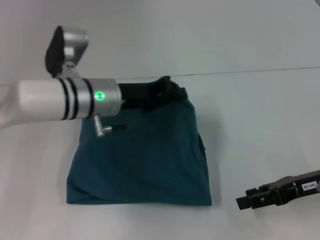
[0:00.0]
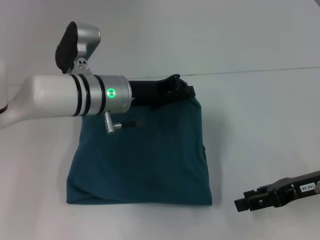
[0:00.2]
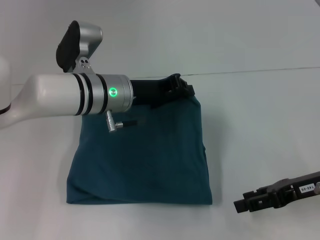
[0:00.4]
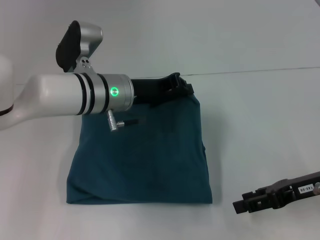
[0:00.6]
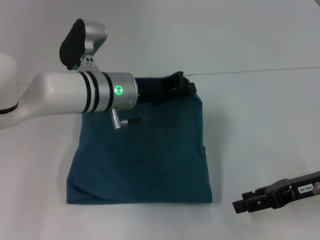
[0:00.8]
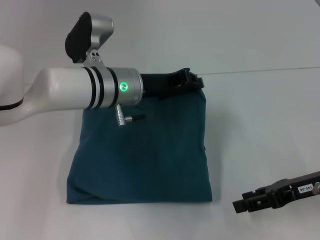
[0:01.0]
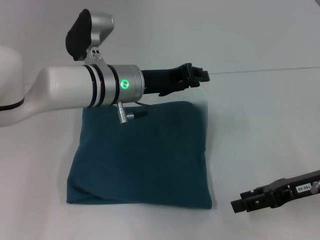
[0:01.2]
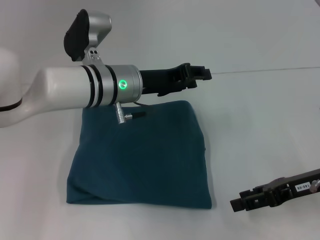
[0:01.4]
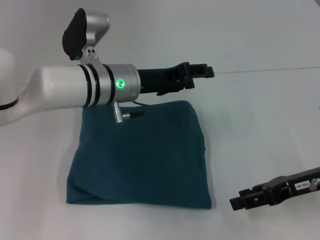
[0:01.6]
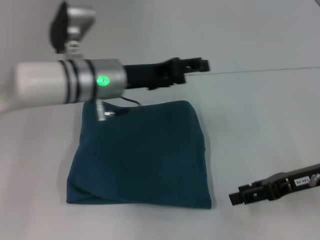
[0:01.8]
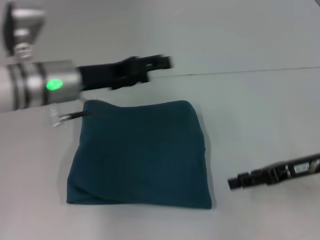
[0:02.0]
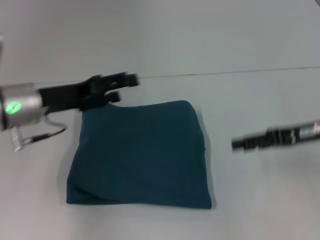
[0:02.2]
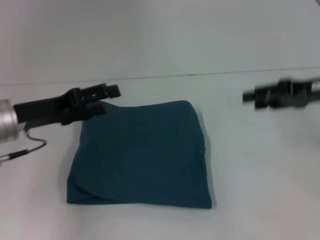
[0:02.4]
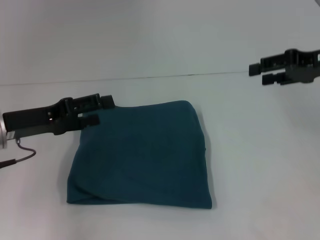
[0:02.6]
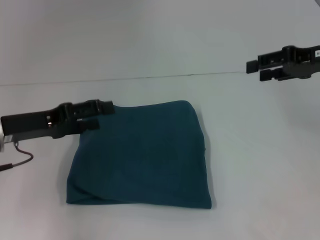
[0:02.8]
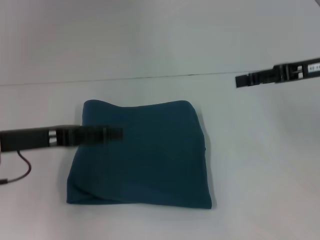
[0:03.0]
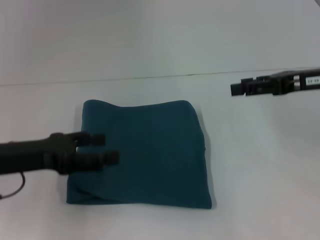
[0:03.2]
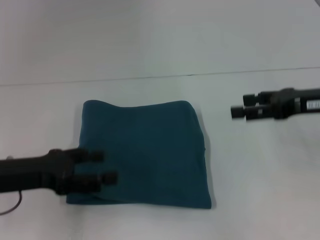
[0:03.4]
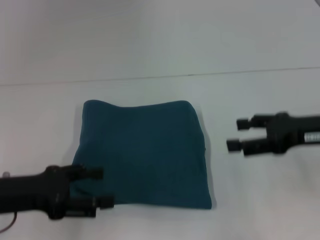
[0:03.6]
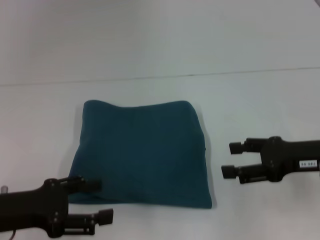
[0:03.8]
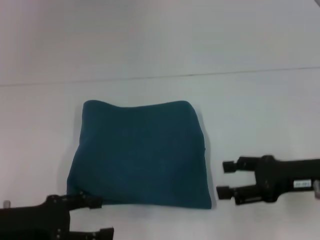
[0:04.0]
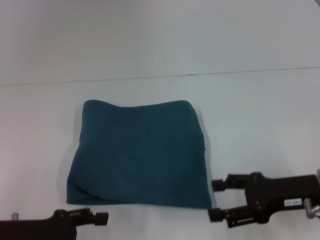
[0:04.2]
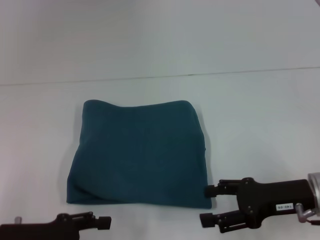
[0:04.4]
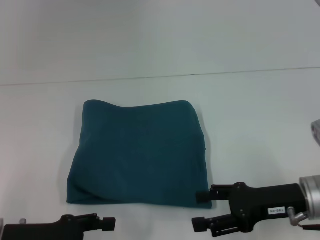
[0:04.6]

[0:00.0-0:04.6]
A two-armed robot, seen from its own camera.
0.0 to 1.6 s: The left gripper opens its fingers.
1.6 to 3.0 s: The right gripper is displaced upward and forward by approximately 15 cm, while the left gripper heads to the left and backward, covering about 20 cm, and opens.
3.0 to 4.6 s: The left gripper is displaced backward and downward by approximately 10 cm. Meanwhile the right gripper moves downward, backward and to the left, about 20 cm.

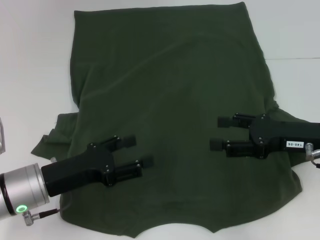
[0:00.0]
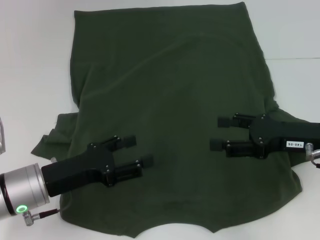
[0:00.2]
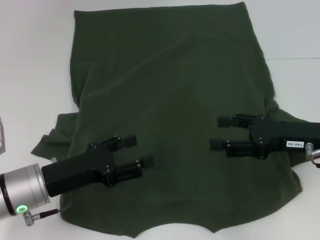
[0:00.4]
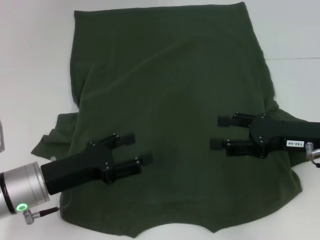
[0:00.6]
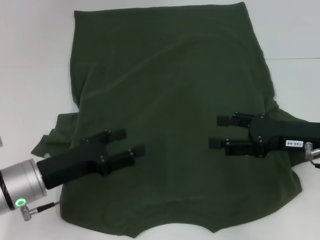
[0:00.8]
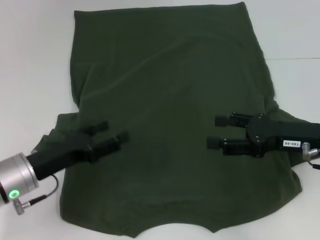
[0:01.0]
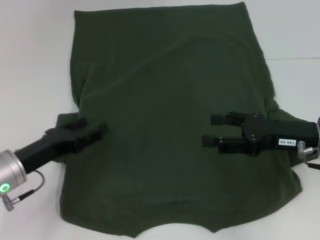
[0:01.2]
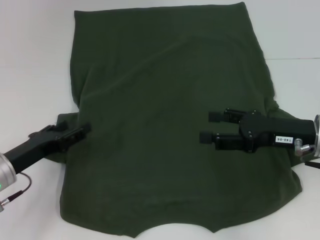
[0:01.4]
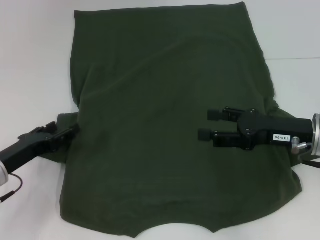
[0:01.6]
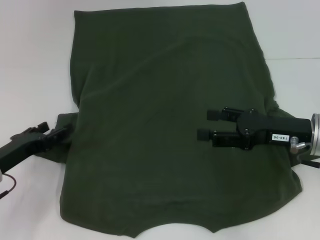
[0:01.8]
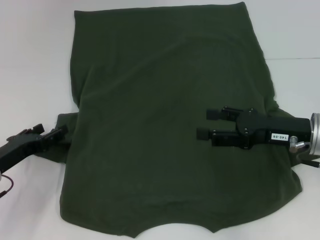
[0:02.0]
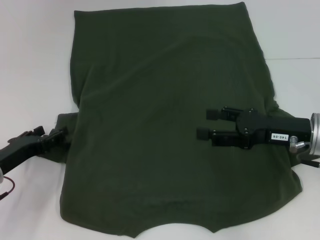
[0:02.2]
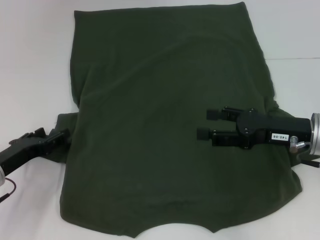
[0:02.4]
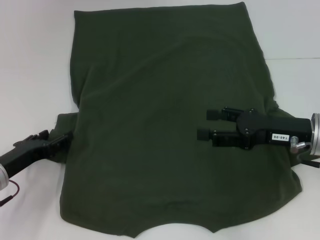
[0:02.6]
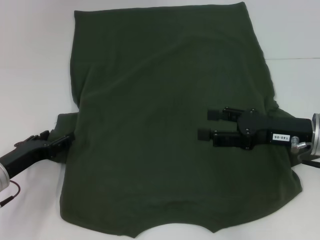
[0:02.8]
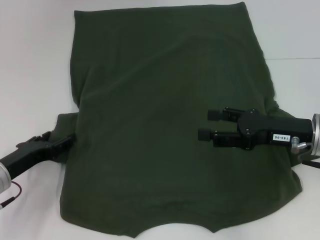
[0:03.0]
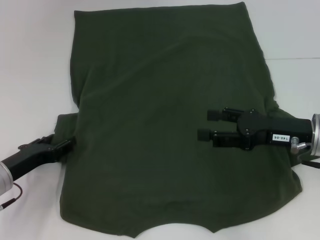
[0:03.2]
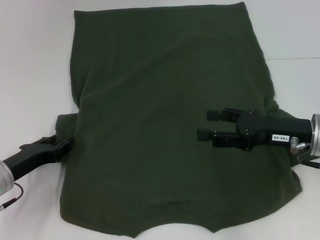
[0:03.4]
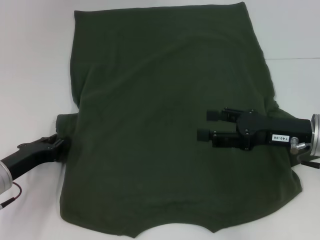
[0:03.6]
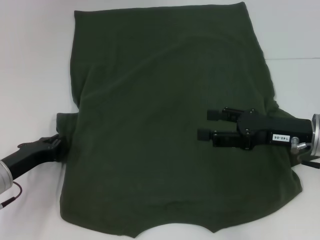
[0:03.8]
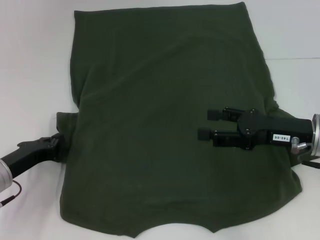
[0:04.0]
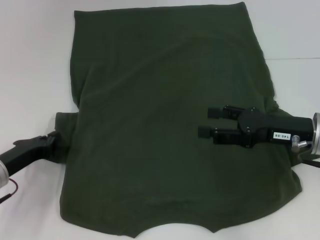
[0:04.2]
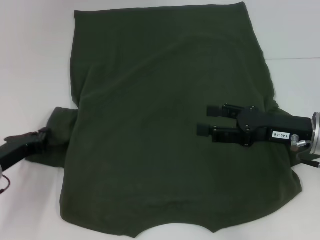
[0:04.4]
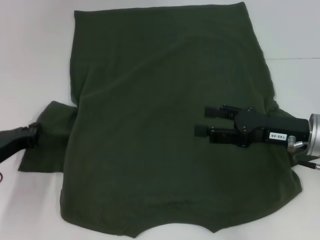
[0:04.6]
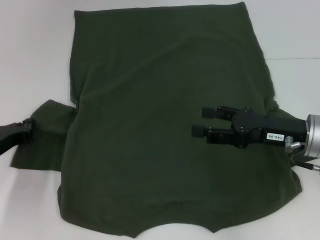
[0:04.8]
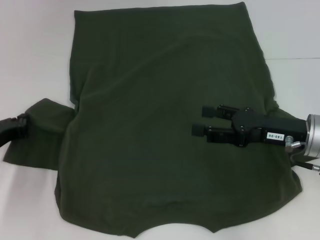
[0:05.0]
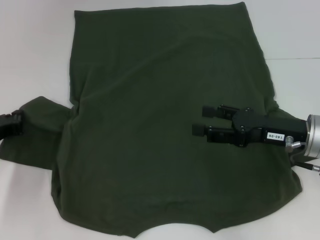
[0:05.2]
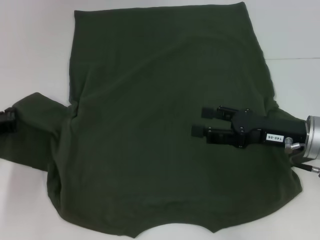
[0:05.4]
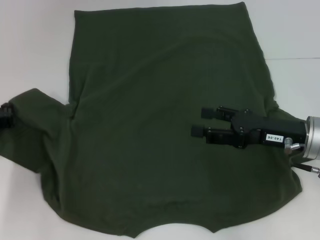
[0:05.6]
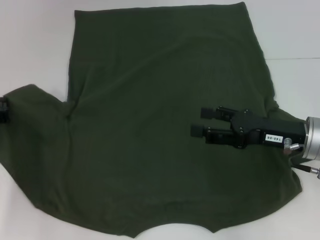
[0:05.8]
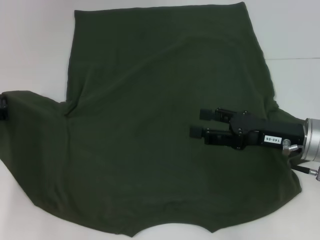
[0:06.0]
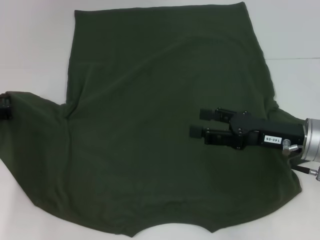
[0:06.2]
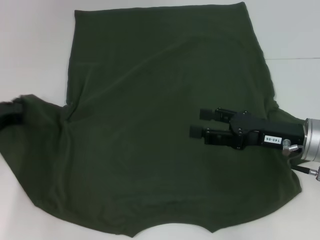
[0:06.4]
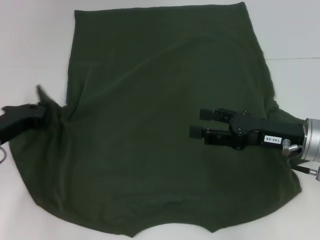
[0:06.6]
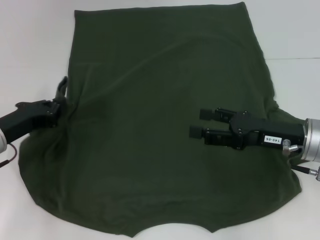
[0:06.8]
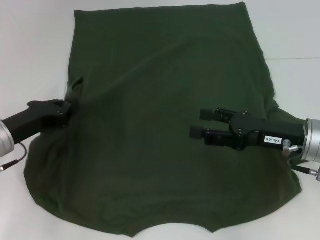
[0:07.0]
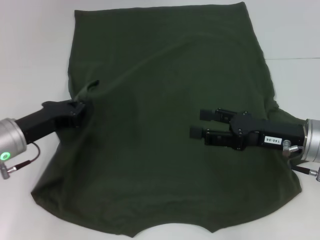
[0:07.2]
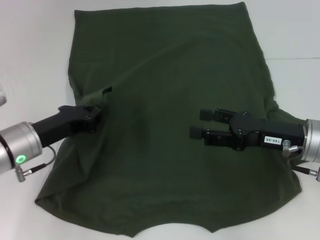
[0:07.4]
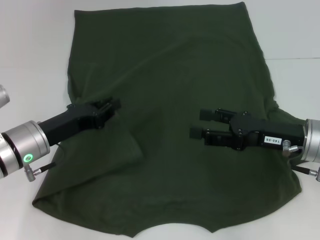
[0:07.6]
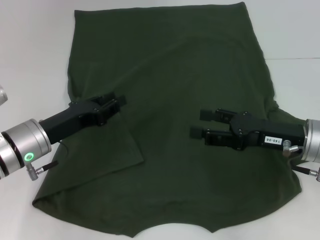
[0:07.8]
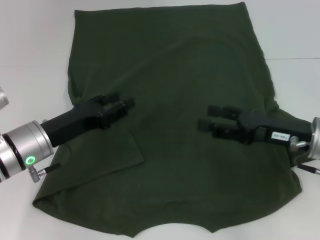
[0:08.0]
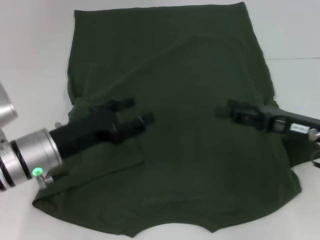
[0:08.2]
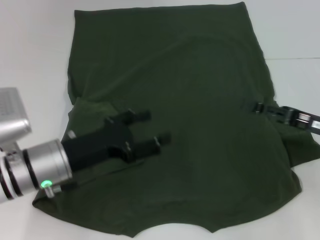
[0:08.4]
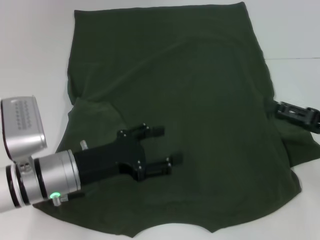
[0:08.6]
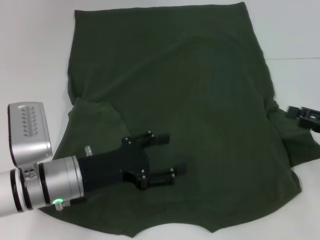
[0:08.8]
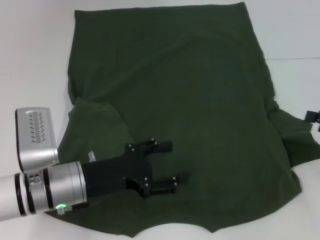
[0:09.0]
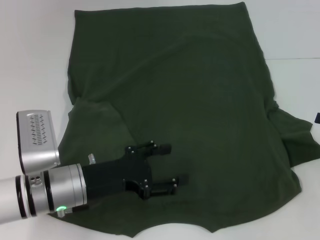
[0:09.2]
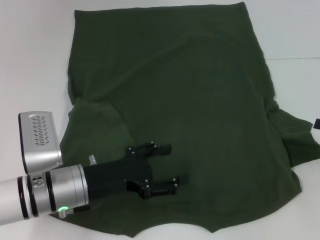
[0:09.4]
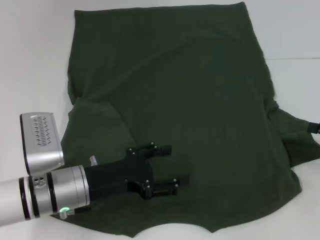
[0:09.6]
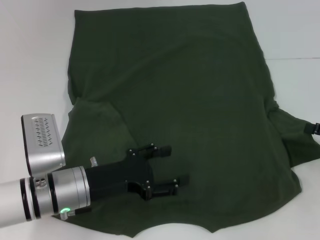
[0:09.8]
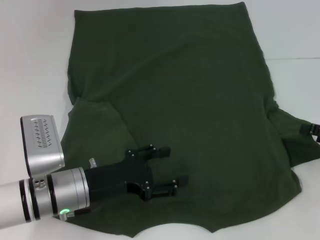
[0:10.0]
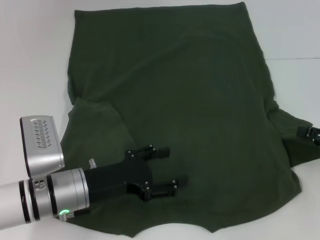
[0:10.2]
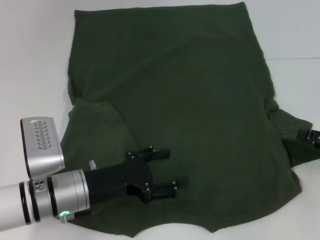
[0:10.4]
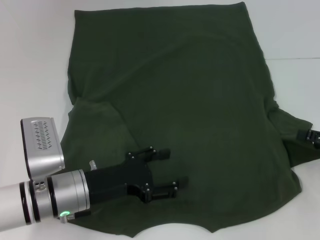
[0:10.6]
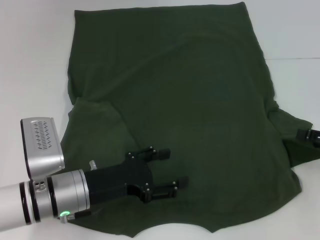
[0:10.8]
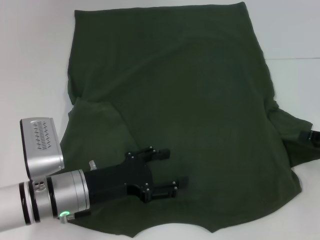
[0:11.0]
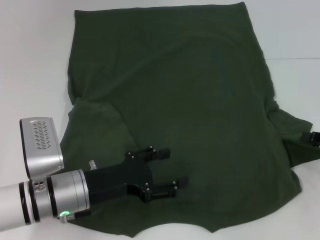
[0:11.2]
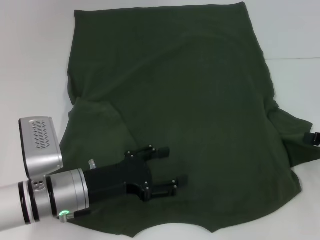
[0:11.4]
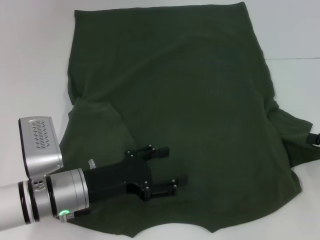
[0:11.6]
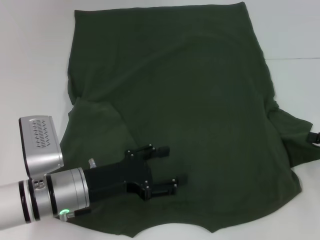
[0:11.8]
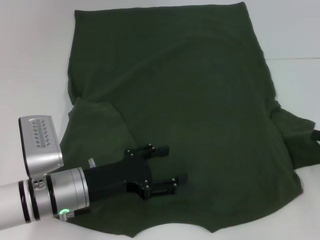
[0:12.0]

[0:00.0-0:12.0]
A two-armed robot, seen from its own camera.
Step, 0.0 to 7.8 s: Fold the bottom left sleeve with your left hand.
0.0 to 1.6 s: The left gripper moves to the left, approximately 5 cm.
1.6 to 3.0 s: The grippers move only a little.
3.0 to 4.4 s: The left gripper closes its fingers.
4.4 to 6.0 s: The left gripper ends up some 5 cm from where it was.
6.0 to 7.6 s: The left gripper goes roughly 10 cm to the right.
7.6 to 9.0 s: The right gripper shifts about 15 cm to the right, while the left gripper moves to the right, approximately 5 cm, and opens.
9.0 to 10.4 s: The grippers make only small movements.
10.4 to 12.0 s: The right gripper closes up.

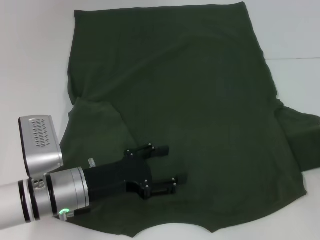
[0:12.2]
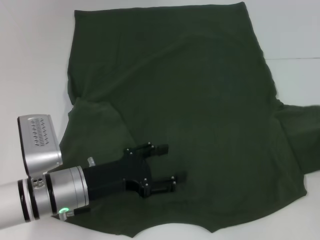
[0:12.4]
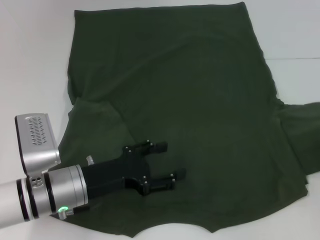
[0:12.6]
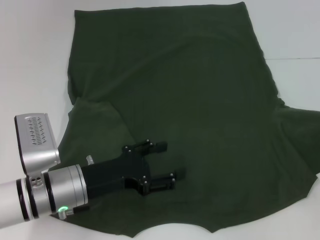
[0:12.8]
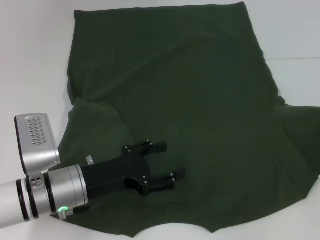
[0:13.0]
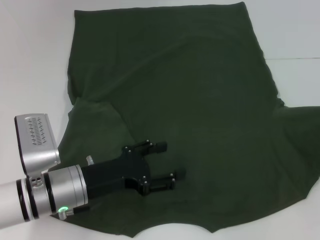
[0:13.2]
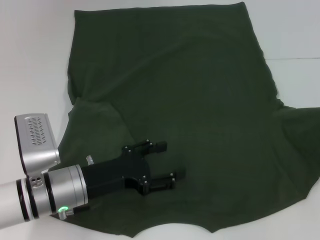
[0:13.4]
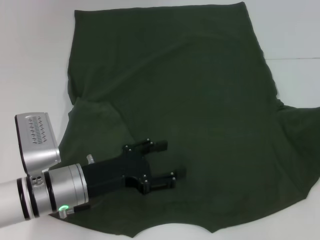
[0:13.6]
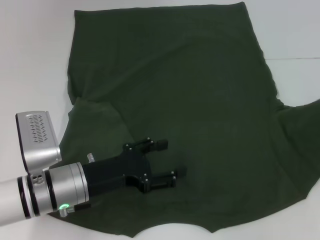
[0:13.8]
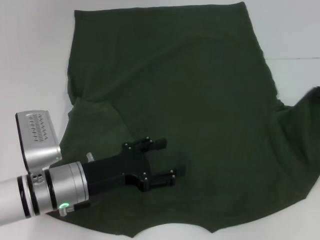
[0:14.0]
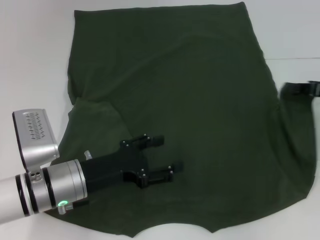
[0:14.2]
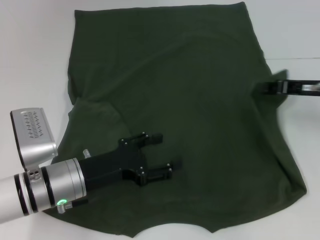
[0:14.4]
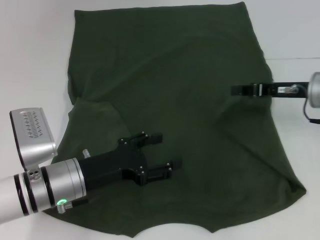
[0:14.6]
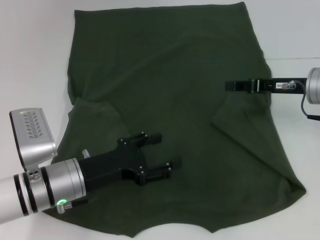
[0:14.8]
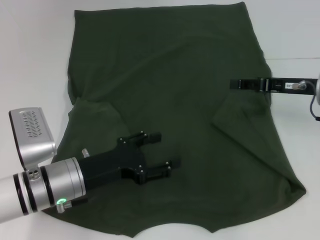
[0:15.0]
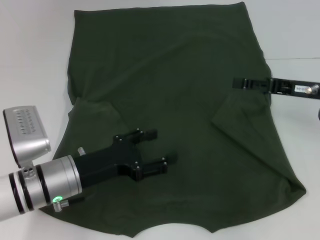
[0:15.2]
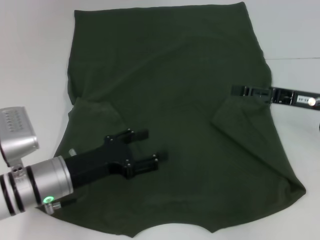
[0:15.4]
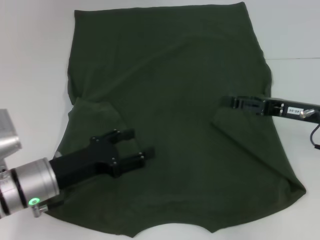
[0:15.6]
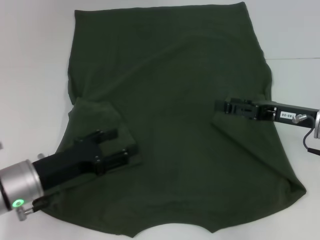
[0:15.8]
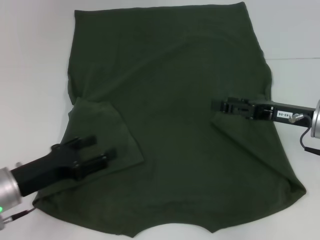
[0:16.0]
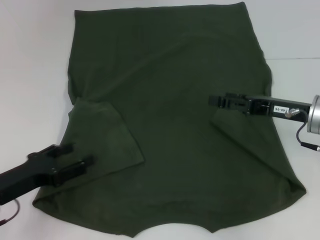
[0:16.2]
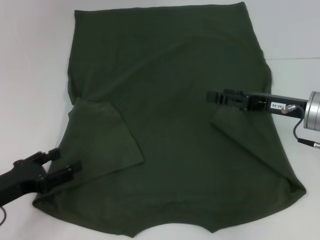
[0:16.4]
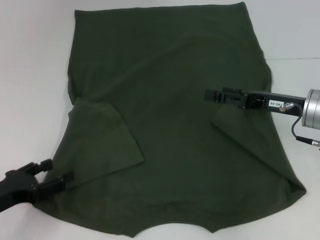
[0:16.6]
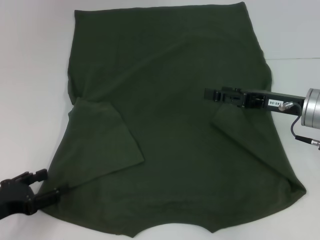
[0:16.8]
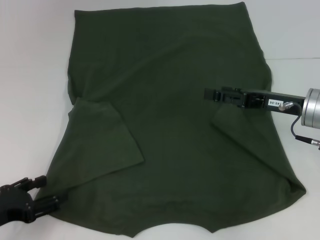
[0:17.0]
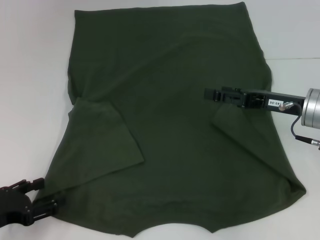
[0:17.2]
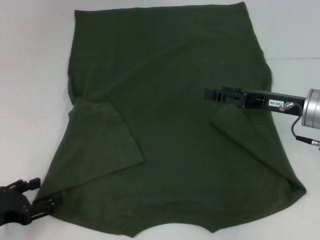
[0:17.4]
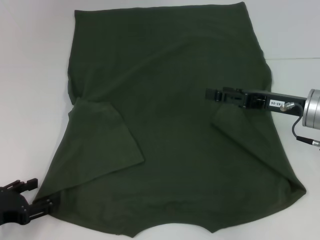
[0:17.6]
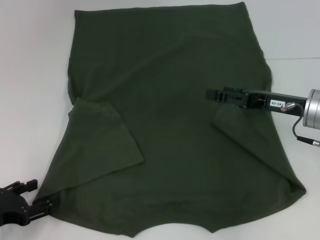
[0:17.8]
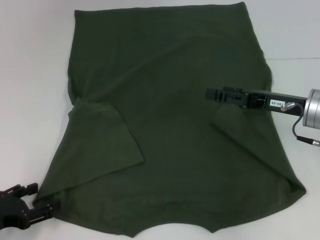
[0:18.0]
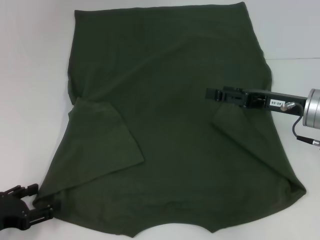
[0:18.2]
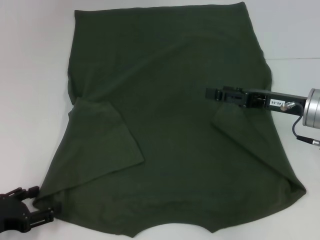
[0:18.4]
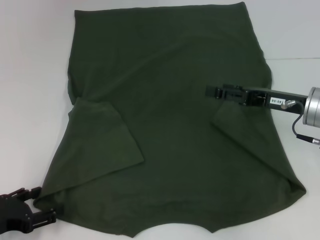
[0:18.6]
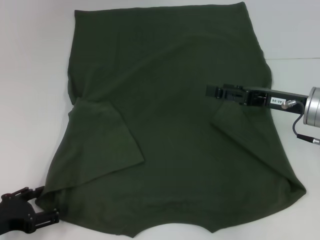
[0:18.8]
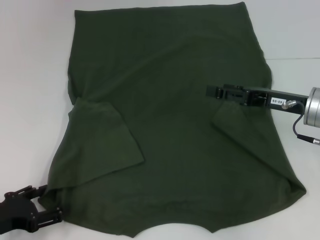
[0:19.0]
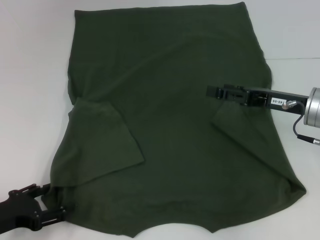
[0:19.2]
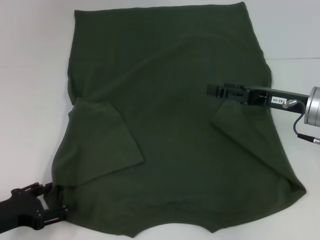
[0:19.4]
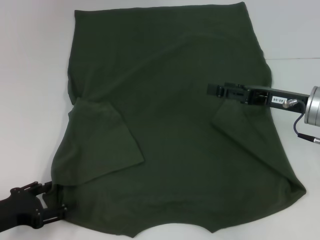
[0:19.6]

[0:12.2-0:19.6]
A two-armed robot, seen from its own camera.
Step, 12.2 to 14.8 s: Fold the bottom right sleeve with your right hand.
12.2 to 13.6 s: The grippers move only a little.
13.6 to 15.2 s: The right gripper moves to the left and forward, some 15 cm, and opens up.
15.2 to 16.6 s: The right gripper opens. The left gripper heads to the left and backward, covering approximately 15 cm.
16.6 to 19.6 s: The grippers make only small movements.
